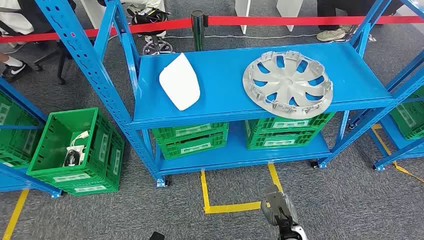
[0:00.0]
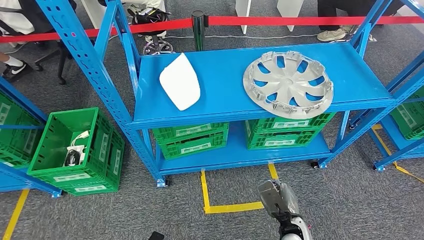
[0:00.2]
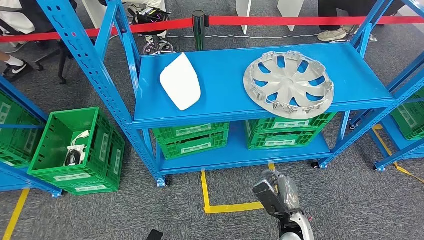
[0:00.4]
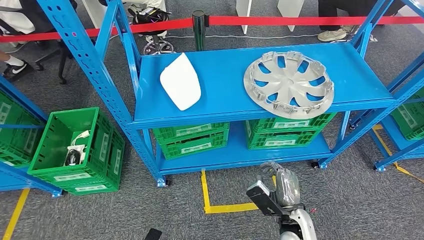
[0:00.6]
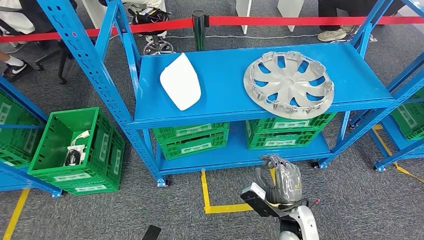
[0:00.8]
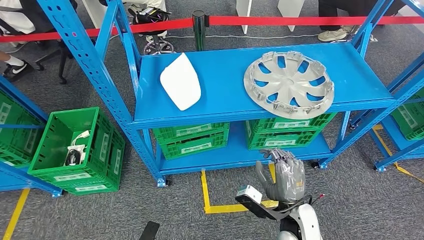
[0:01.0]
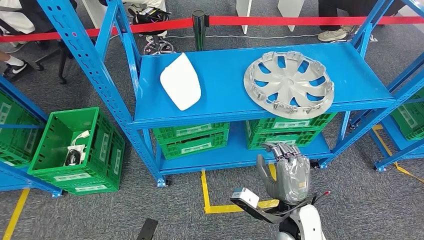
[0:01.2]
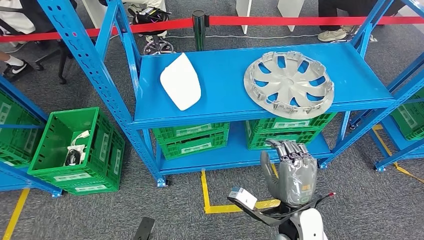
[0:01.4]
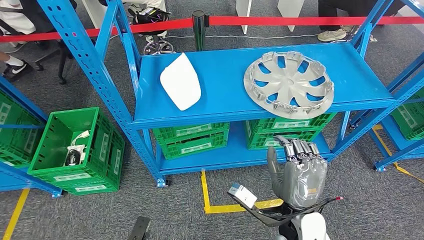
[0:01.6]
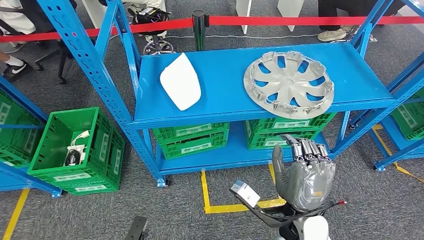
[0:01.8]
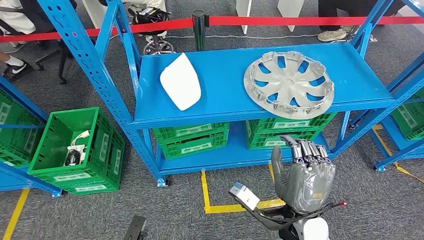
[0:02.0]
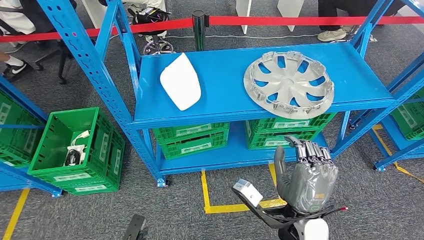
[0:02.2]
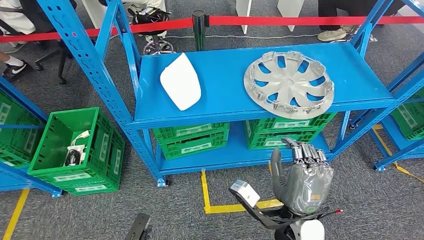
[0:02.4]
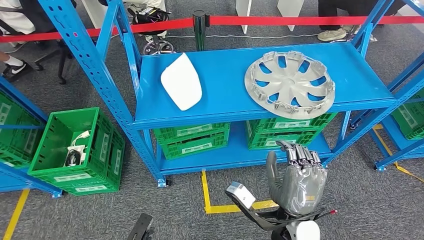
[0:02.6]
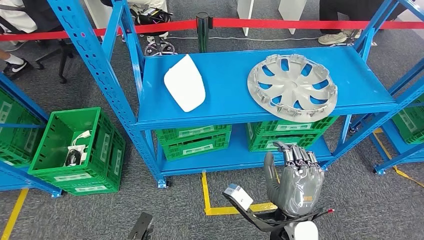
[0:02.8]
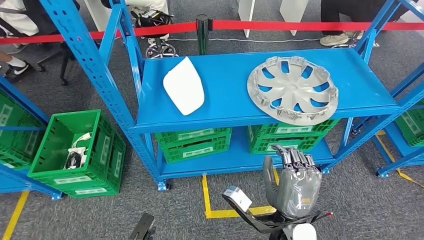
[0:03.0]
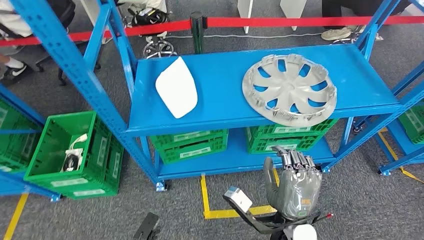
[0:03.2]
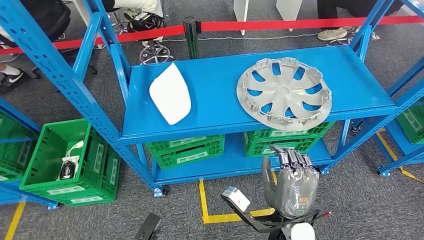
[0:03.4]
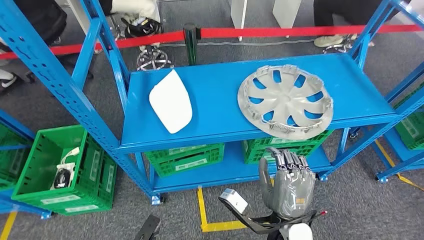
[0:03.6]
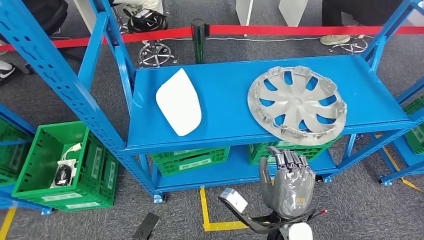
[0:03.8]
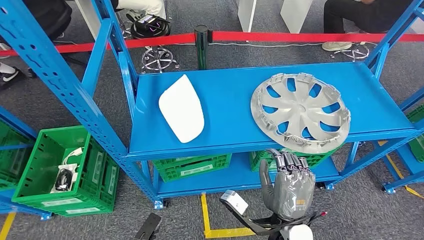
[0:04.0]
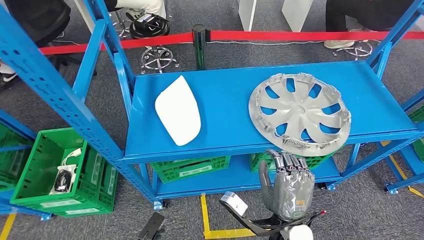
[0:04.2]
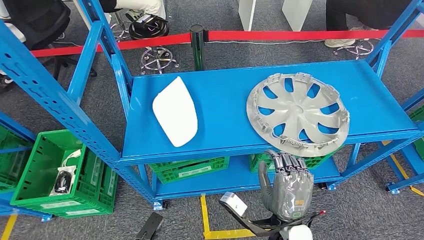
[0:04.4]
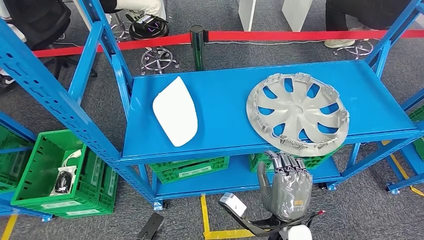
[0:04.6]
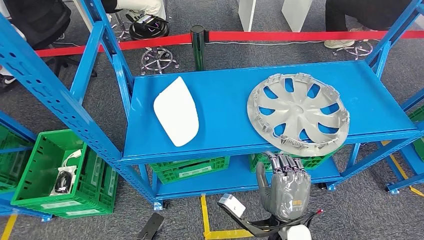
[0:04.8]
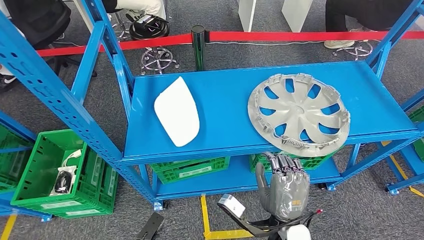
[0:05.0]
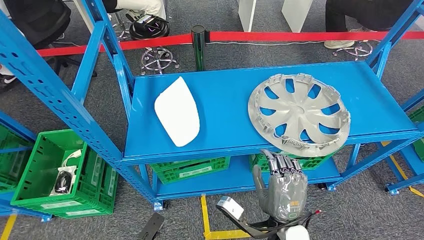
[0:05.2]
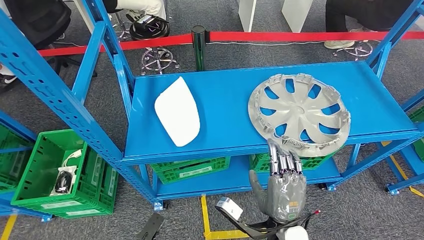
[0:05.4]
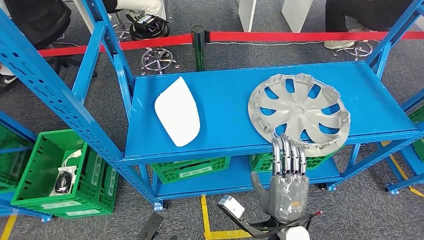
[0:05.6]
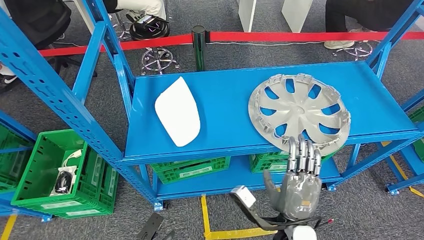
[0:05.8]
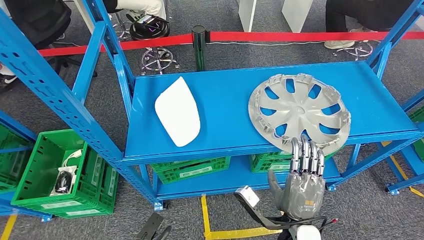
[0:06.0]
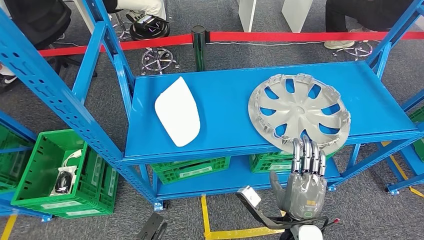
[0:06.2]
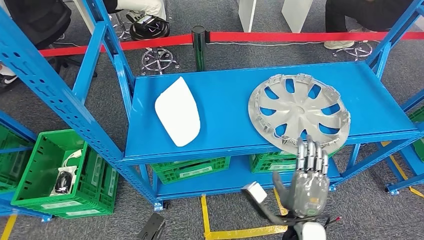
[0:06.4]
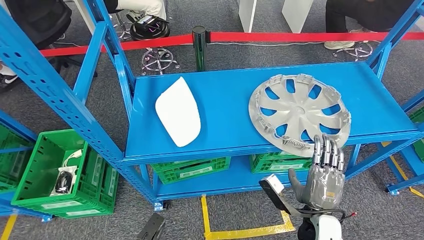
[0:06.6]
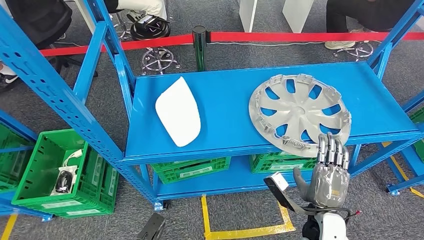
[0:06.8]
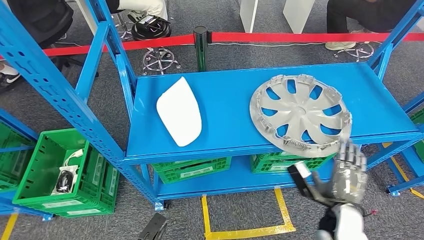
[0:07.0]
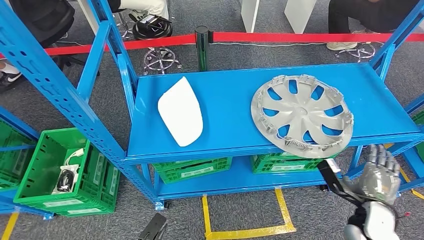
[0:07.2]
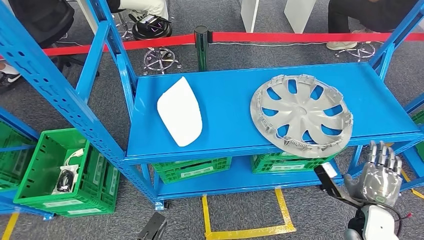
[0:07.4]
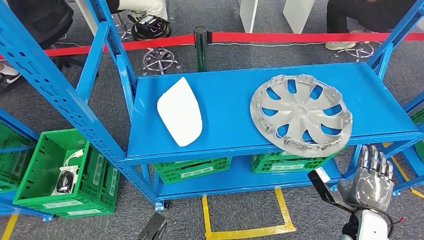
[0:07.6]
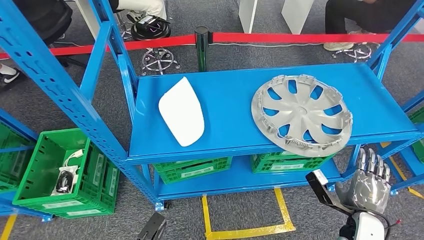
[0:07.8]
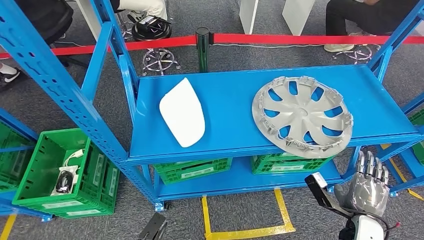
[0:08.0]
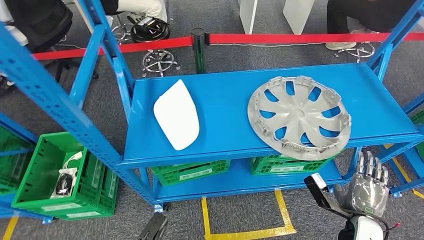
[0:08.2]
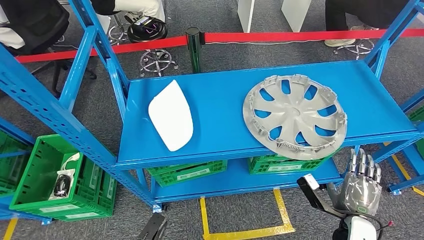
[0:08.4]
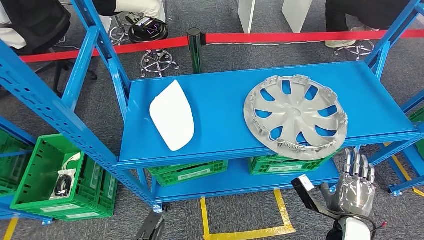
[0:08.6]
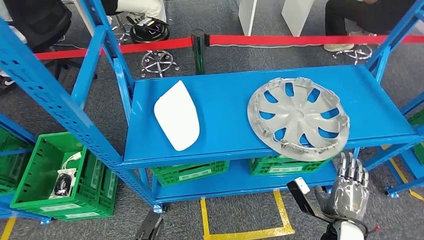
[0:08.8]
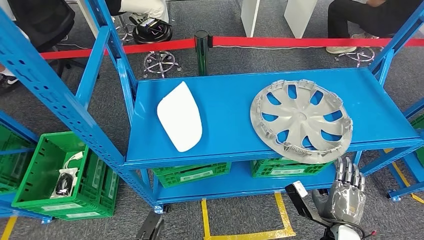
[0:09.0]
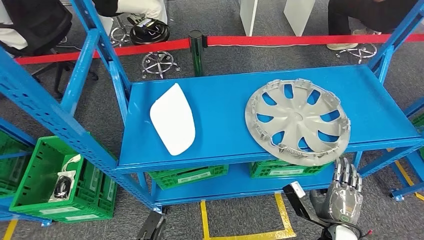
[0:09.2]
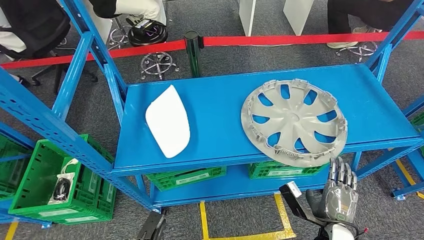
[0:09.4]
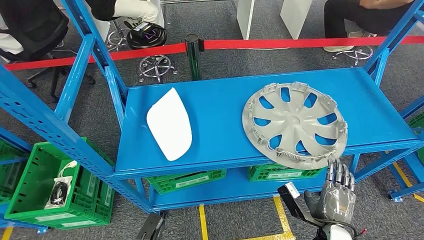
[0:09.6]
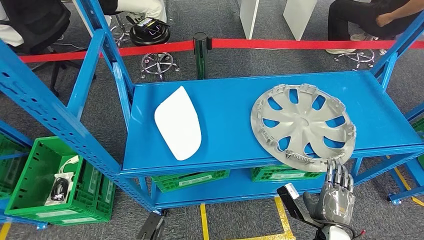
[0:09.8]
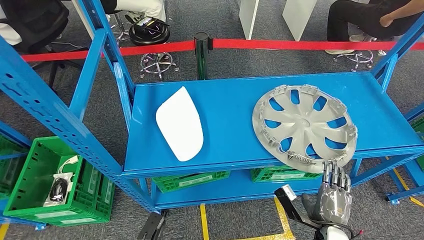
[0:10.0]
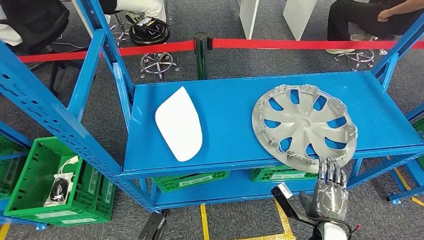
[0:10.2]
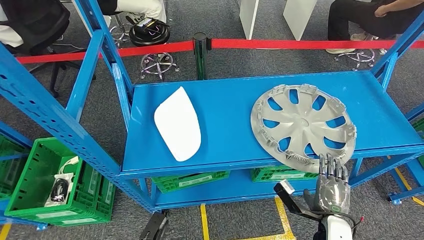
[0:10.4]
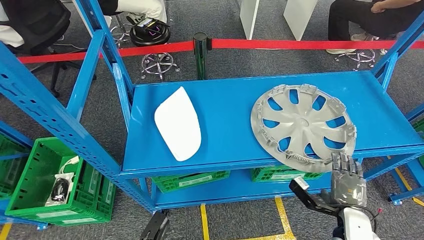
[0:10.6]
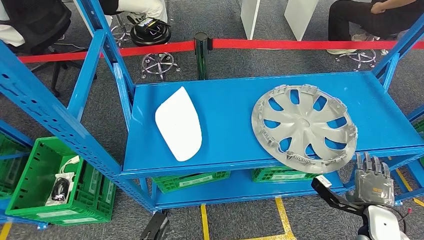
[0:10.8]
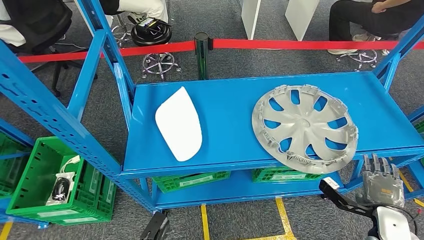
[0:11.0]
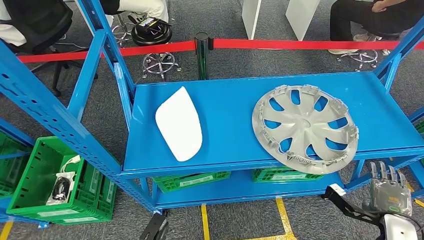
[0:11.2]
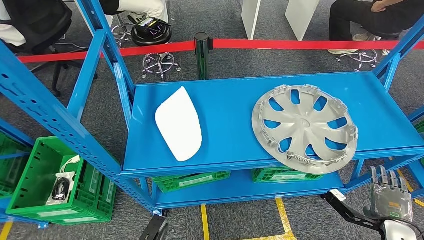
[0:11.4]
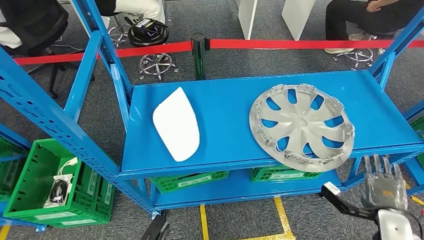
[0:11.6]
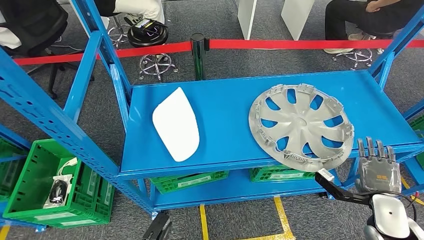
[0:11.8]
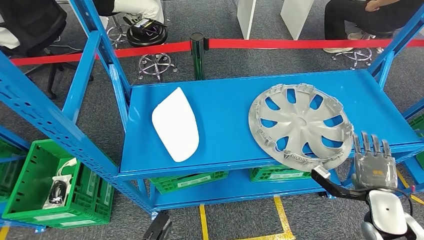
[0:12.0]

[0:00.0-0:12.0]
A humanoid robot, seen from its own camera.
0:04.4 to 0:06.0: The hands stay close to where they were, moving slightly.
0:06.0 to 0:07.6: The right hand goes approximately 20 cm to the right.

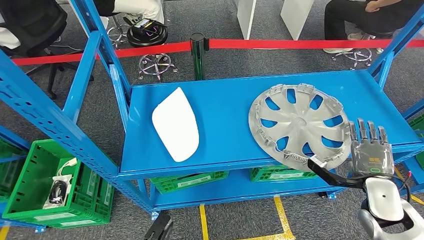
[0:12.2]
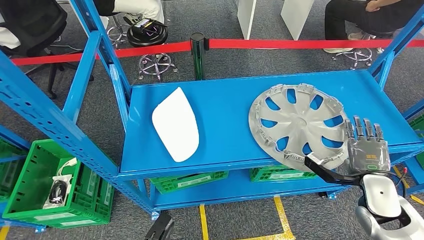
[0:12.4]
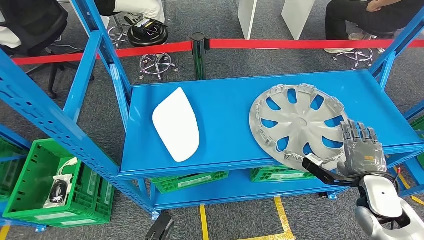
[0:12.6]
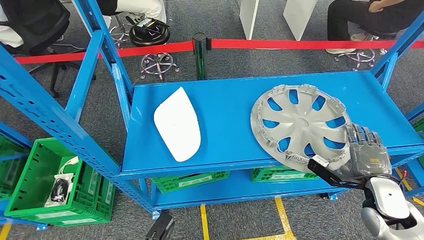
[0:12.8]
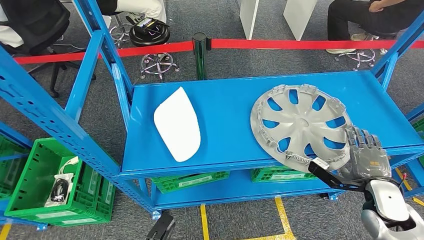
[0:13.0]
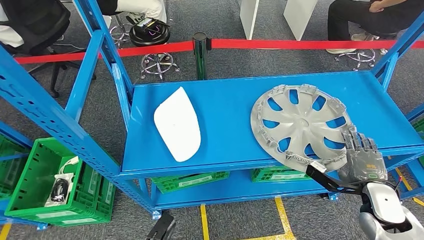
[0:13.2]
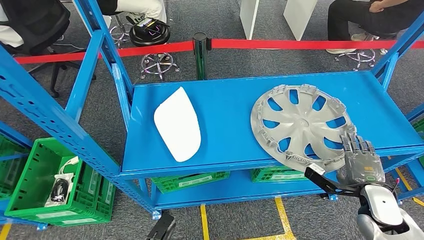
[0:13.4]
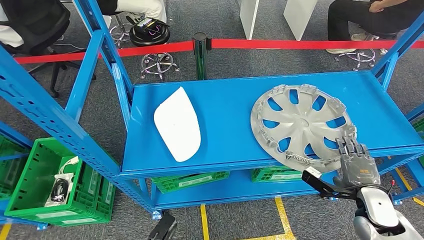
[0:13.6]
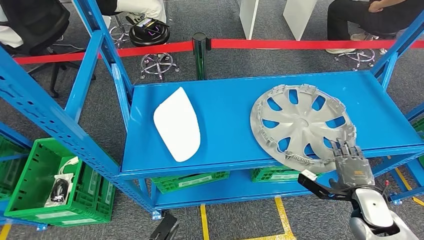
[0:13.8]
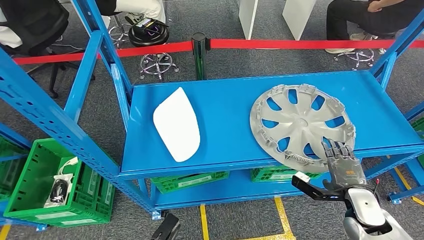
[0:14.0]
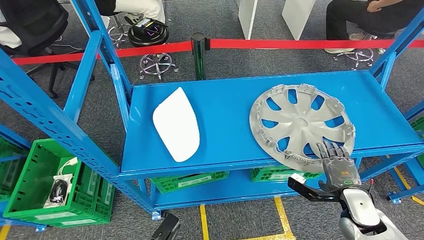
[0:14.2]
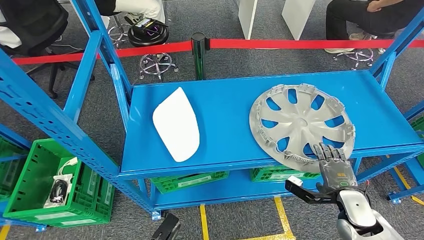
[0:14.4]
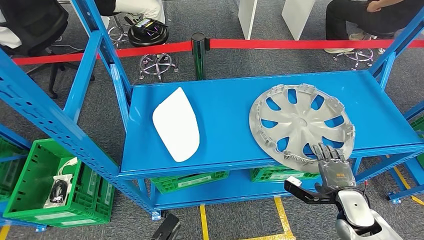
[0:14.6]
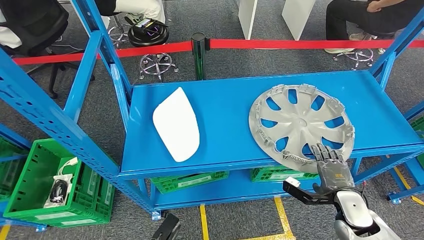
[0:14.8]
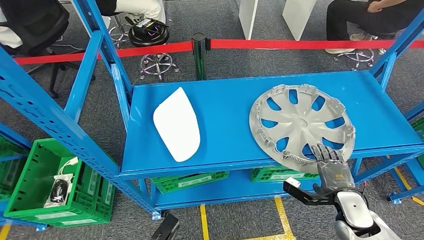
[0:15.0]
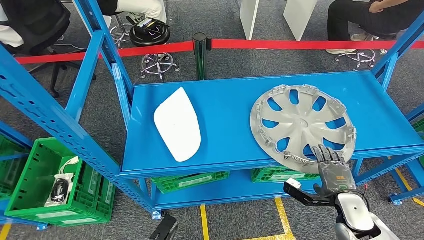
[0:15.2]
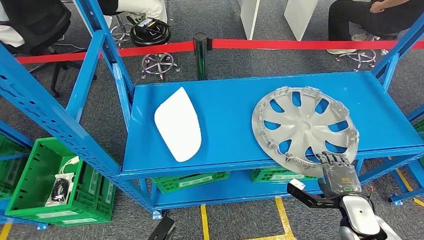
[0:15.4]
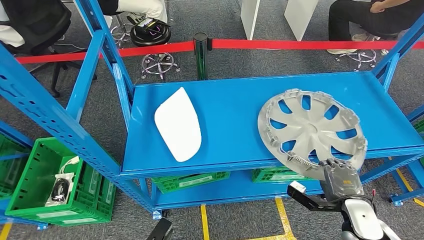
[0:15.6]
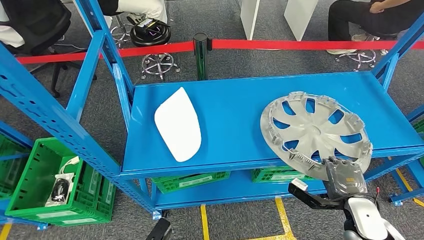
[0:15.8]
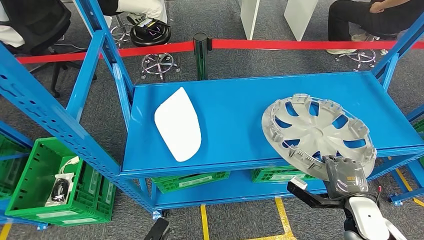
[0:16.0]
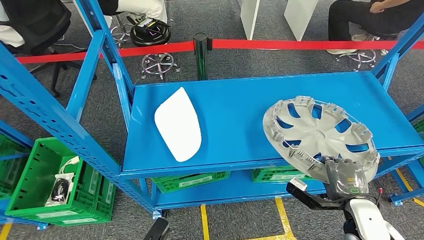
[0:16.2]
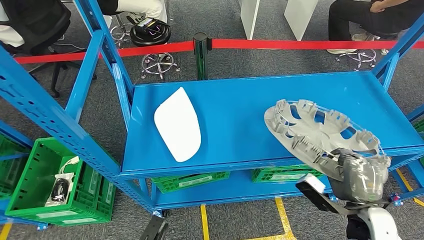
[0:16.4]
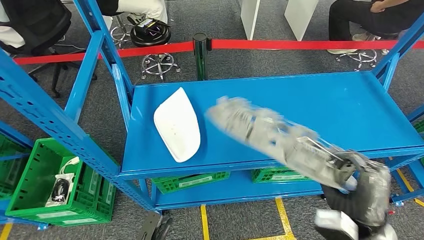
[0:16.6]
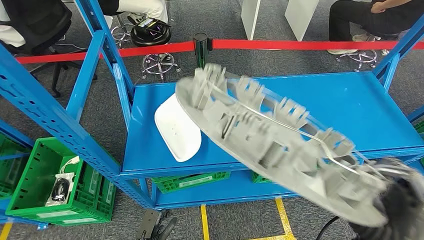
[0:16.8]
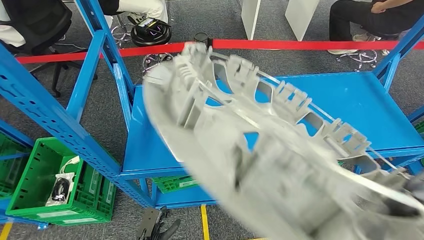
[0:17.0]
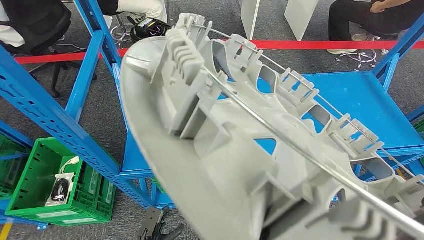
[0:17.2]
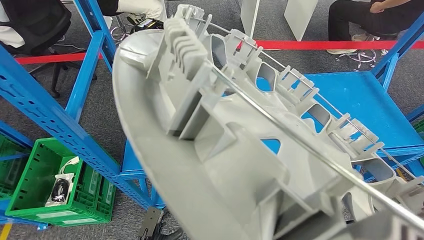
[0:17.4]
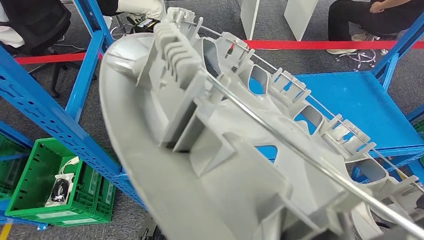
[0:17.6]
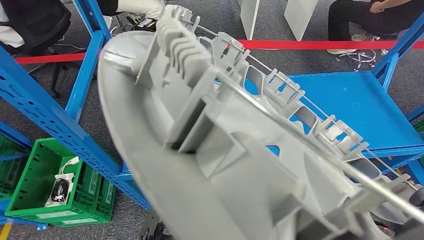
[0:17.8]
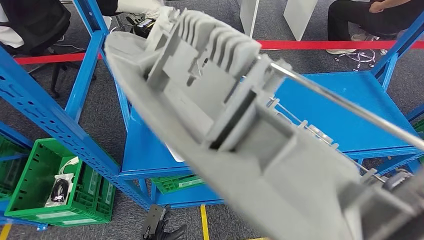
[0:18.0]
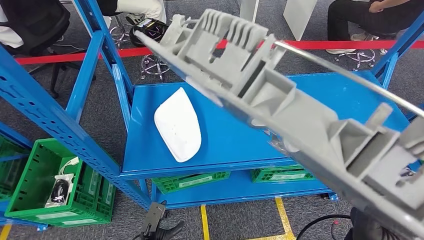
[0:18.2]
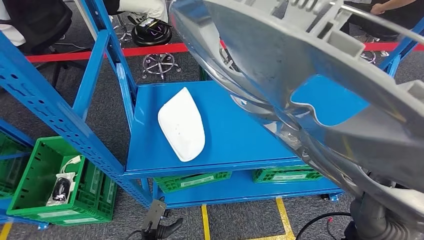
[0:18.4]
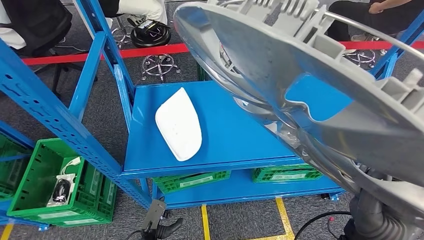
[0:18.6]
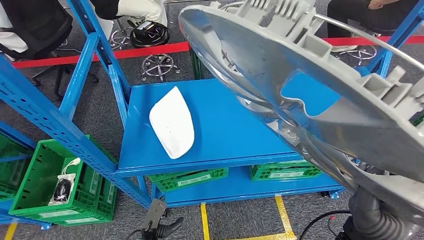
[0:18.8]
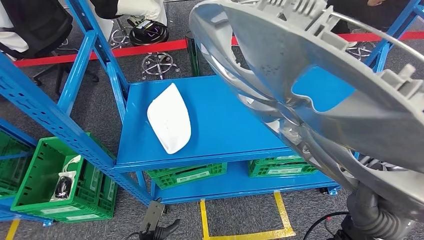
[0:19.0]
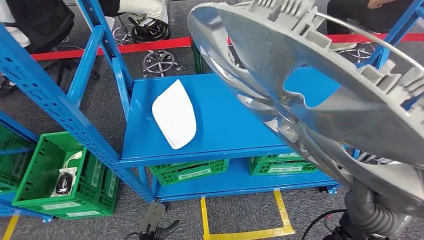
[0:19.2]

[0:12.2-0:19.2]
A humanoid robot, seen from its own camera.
Step, 0:12.2 to 0:17.6: Pick up the small component from the shelf.
0:12.2 to 0:13.6: There are only small adjustments of the hands.
0:13.6 to 0:15.0: The hands make only small movements.
0:15.0 to 0:16.4: The right hand shifts approximately 10 cm upward and backward.
